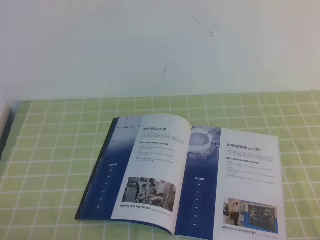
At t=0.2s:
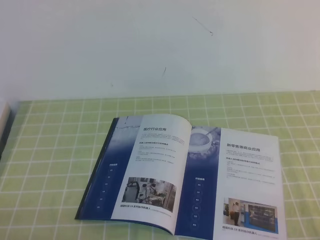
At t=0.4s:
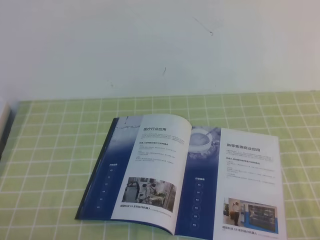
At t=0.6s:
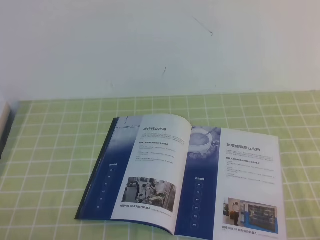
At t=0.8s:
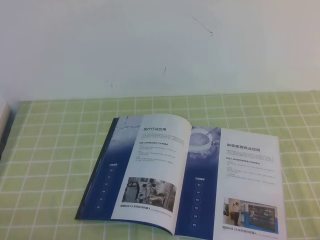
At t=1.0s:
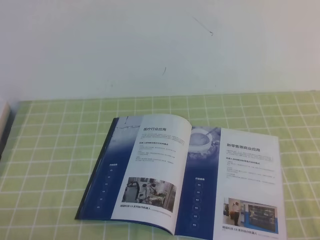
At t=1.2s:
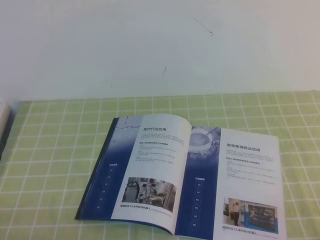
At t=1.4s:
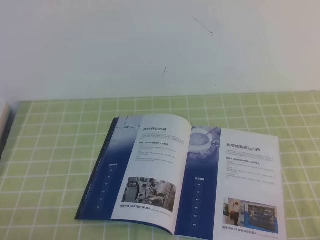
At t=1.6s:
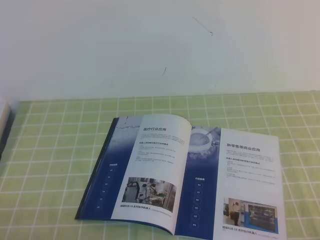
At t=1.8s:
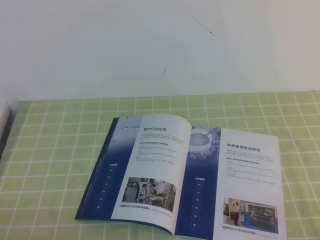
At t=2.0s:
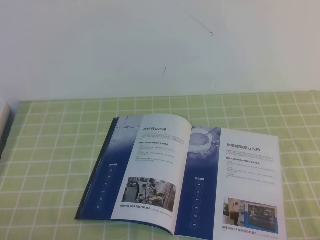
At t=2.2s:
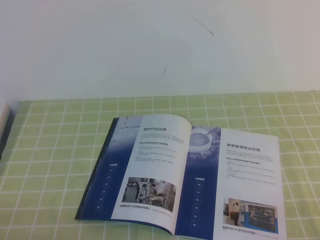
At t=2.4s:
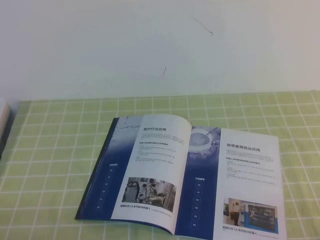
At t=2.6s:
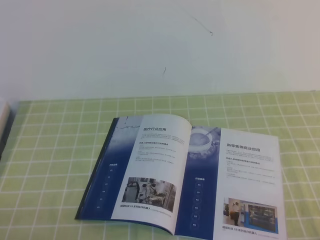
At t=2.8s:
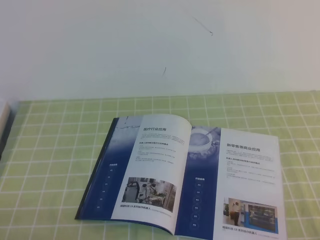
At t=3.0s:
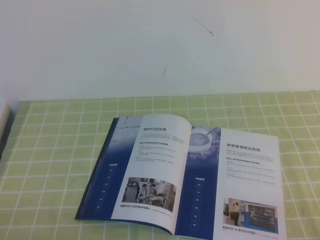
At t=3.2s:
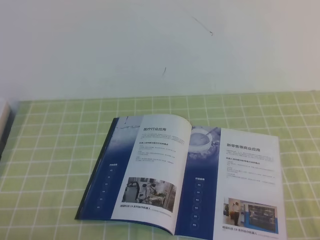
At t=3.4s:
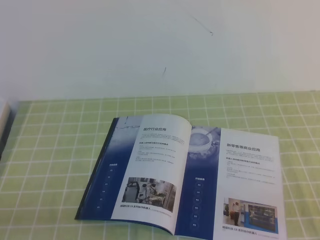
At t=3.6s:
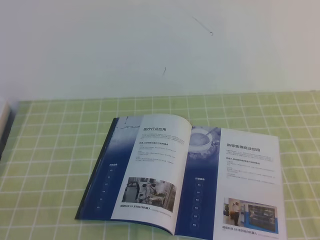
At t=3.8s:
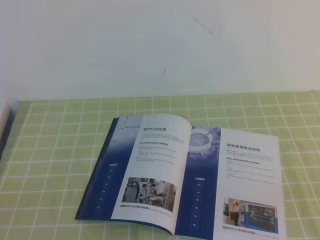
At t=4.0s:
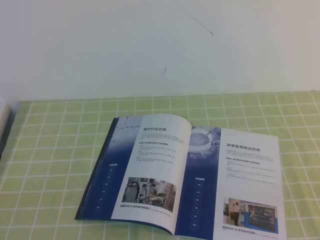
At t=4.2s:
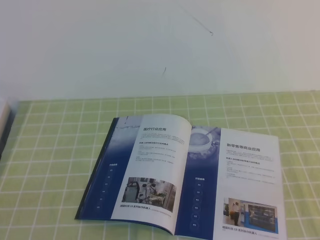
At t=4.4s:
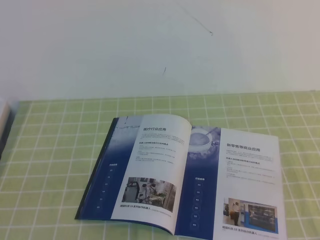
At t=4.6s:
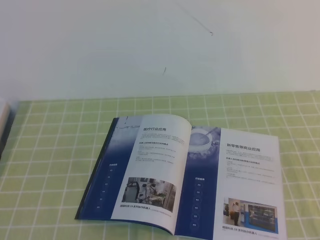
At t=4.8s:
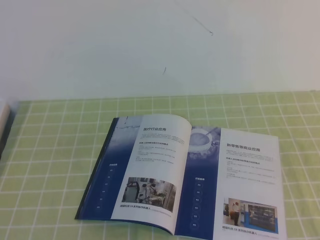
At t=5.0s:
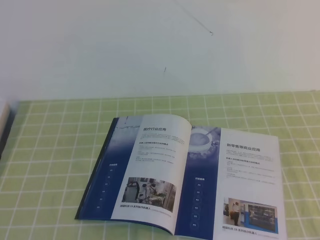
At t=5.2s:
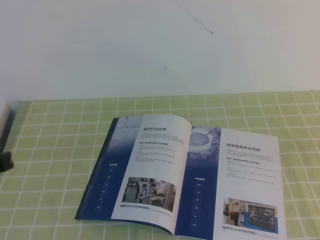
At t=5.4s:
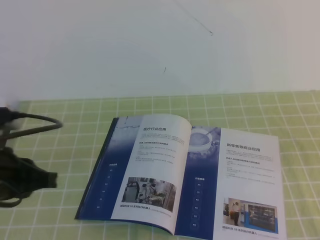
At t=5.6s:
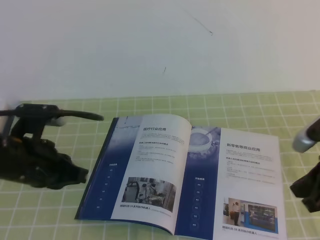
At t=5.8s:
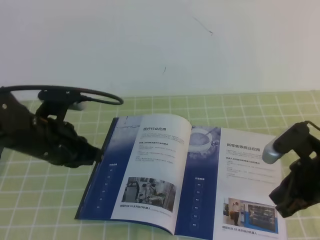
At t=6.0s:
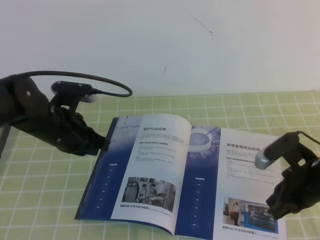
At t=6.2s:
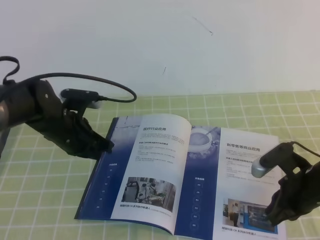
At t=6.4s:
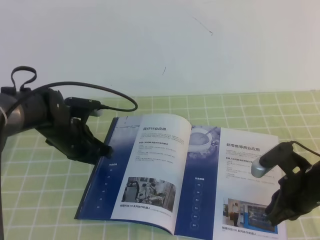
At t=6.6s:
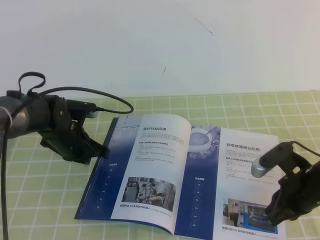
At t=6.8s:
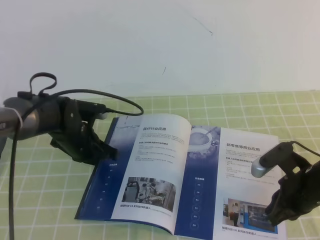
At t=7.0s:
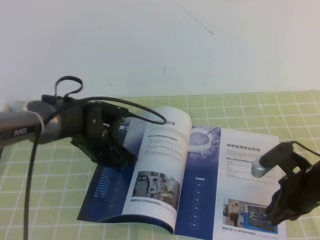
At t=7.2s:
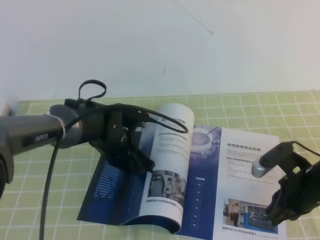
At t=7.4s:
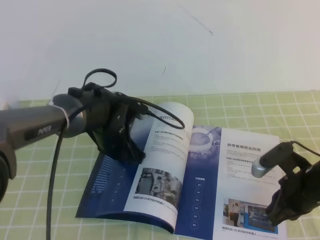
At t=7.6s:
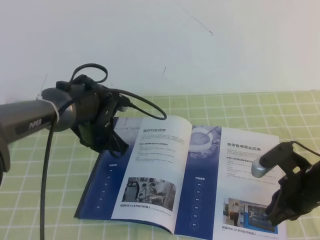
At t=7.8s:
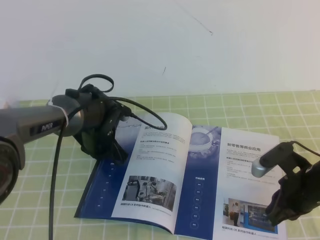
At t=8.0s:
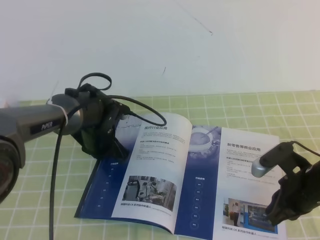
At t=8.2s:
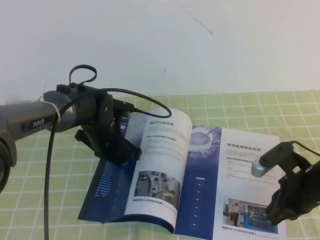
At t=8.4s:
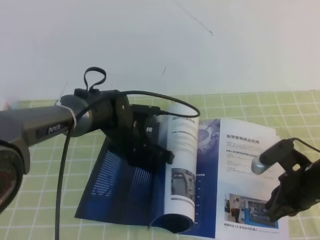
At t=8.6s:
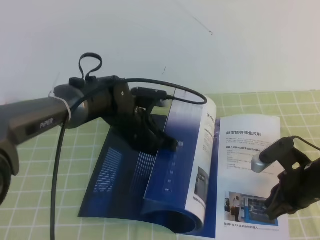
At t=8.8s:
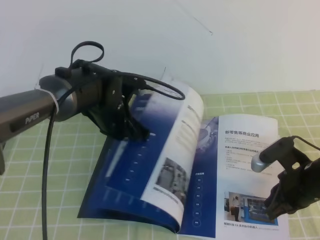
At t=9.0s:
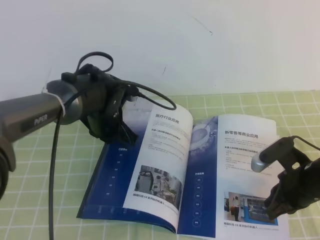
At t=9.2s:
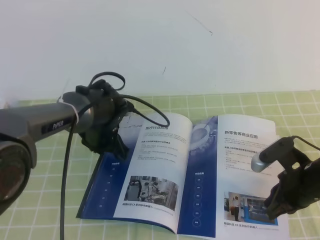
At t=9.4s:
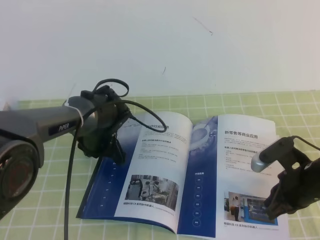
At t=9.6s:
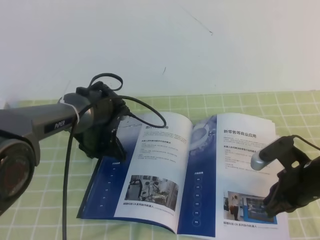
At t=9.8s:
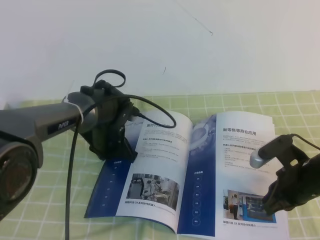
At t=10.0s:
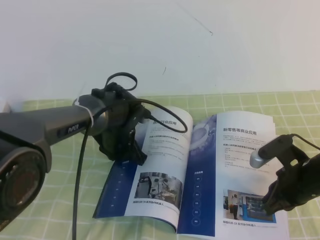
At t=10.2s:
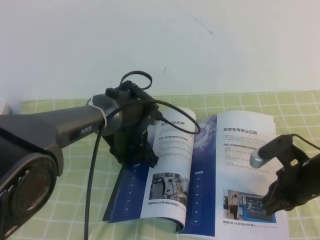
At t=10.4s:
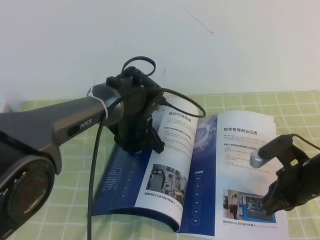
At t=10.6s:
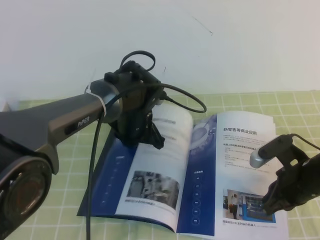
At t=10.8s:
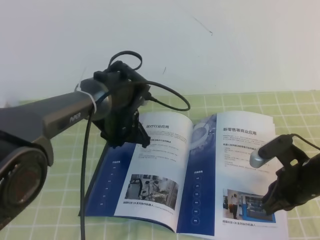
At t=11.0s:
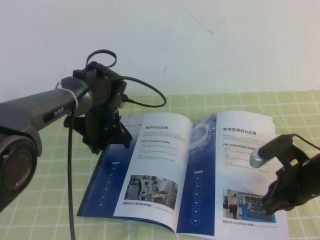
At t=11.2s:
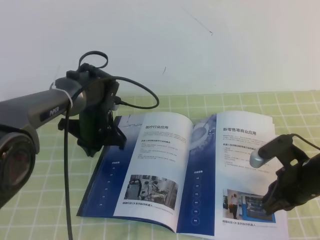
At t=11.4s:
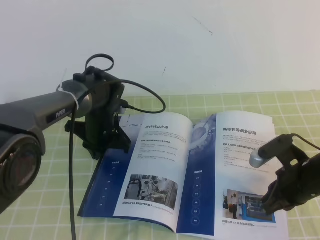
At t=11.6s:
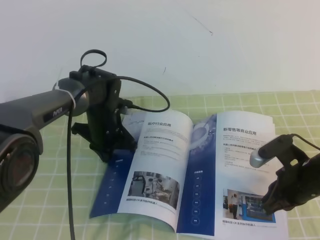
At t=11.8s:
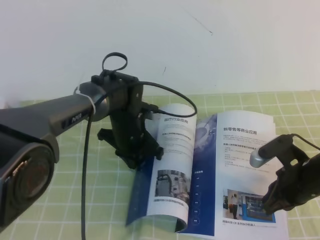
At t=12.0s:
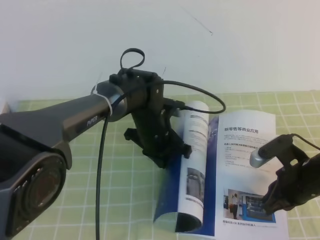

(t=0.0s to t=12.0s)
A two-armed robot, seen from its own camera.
Task of the whole recording: on the green tablecloth, hold the book with one hand and close it with the other.
t=0.0s - t=3.0s: The two grippers keep their place.
t=4.4s - t=6.0s: The right gripper heads forward, downward and to the left, covering some 25 cm; the left gripper goes about 30 cm forward.
t=6.0s - t=7.6s: The left gripper moves to the right, downward and forward, some 10 cm.
t=9.0s - t=10.4s: The left gripper travels to the right by approximately 5 cm.
t=10.4s - t=12.0s: The left gripper goes to the left and returns, some 10 cm each way.

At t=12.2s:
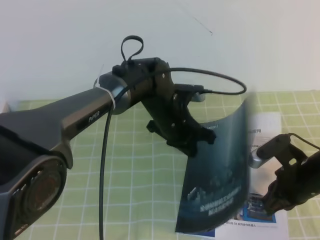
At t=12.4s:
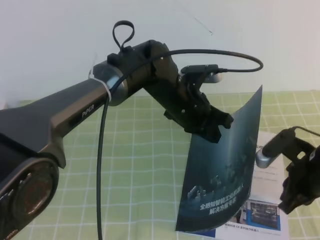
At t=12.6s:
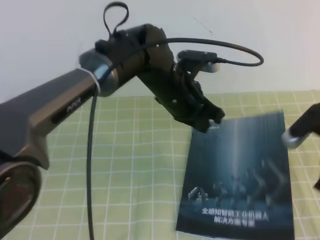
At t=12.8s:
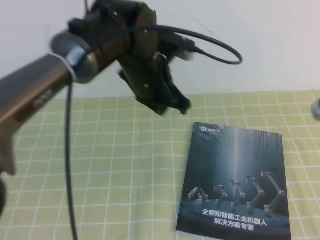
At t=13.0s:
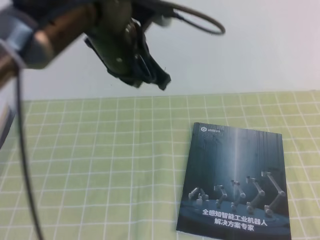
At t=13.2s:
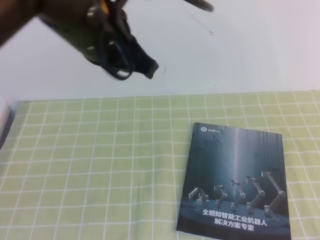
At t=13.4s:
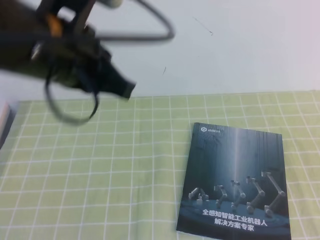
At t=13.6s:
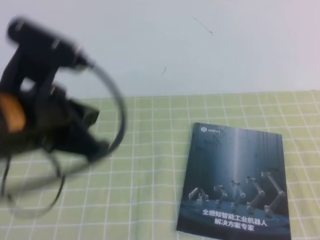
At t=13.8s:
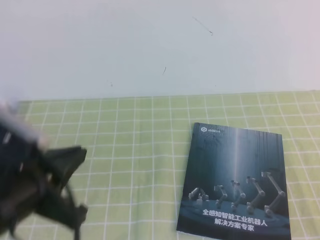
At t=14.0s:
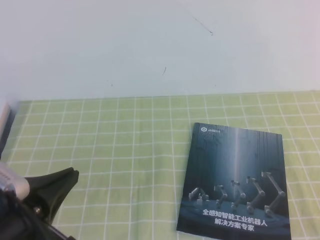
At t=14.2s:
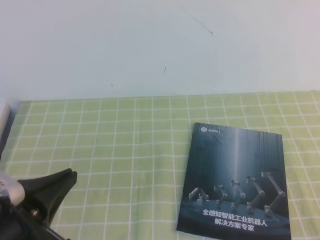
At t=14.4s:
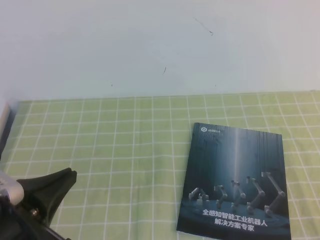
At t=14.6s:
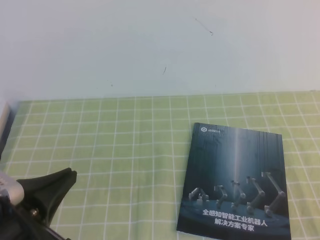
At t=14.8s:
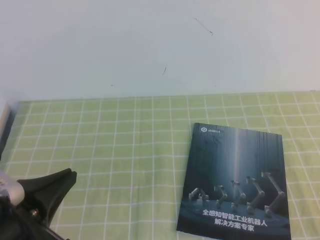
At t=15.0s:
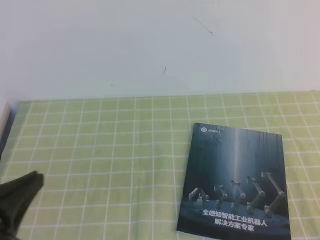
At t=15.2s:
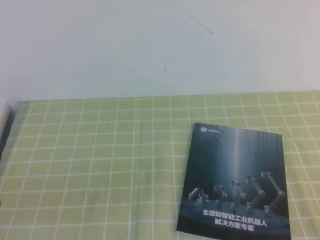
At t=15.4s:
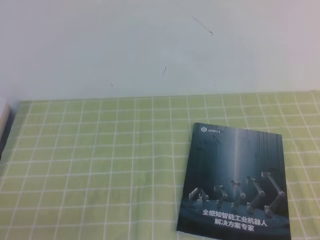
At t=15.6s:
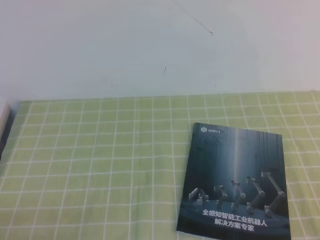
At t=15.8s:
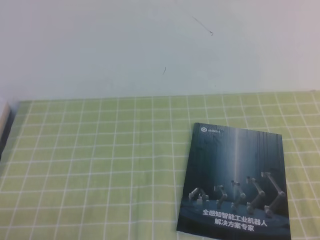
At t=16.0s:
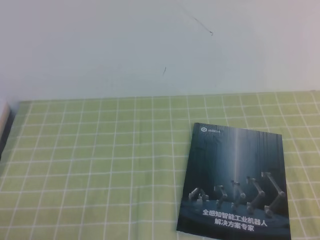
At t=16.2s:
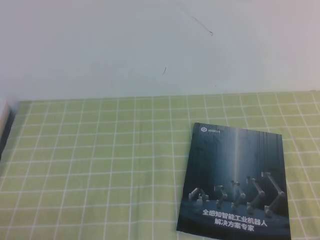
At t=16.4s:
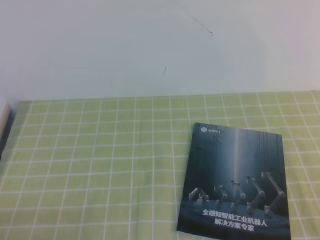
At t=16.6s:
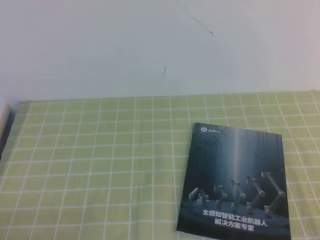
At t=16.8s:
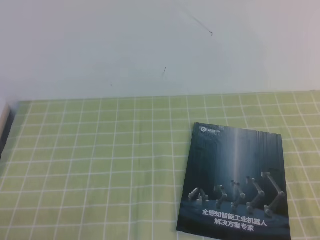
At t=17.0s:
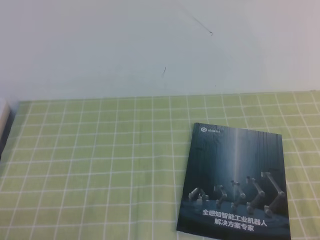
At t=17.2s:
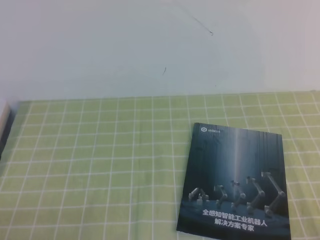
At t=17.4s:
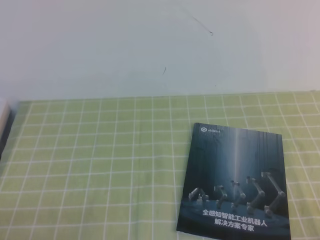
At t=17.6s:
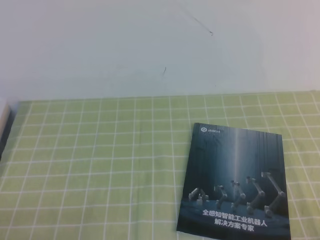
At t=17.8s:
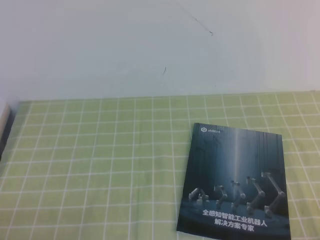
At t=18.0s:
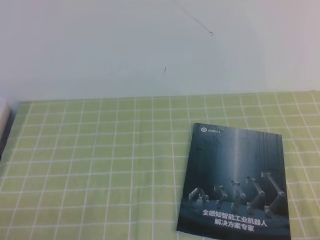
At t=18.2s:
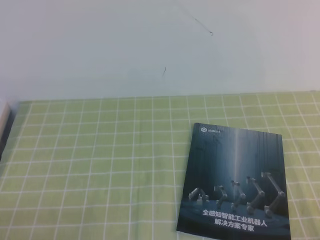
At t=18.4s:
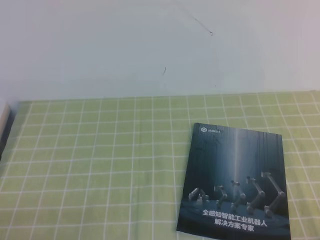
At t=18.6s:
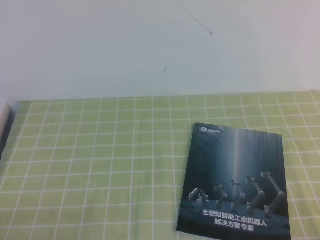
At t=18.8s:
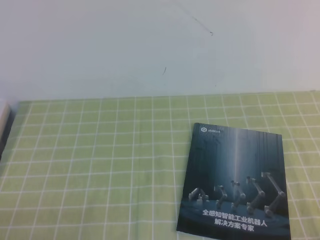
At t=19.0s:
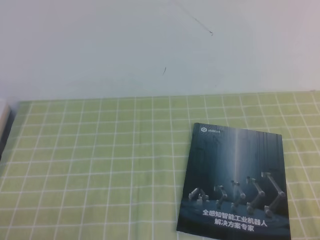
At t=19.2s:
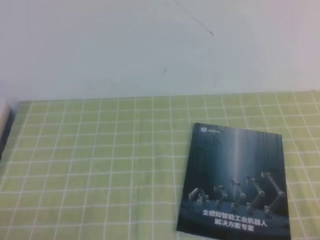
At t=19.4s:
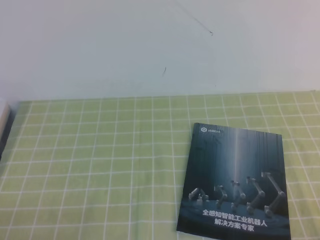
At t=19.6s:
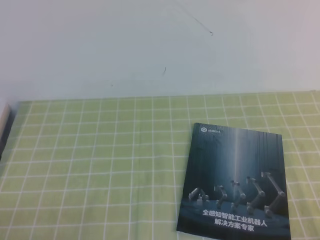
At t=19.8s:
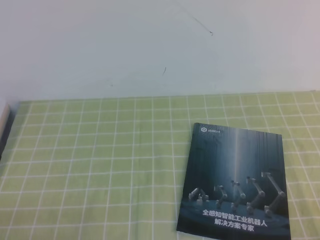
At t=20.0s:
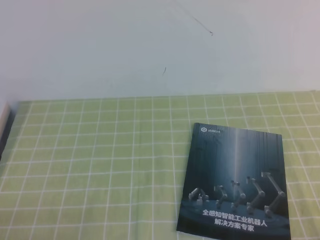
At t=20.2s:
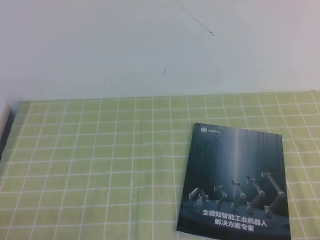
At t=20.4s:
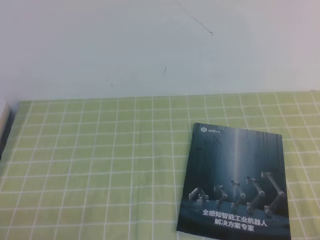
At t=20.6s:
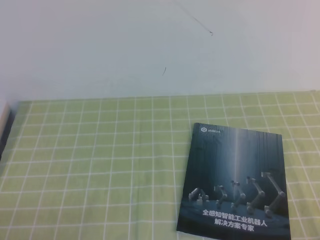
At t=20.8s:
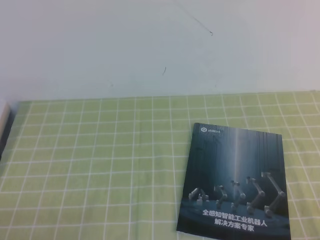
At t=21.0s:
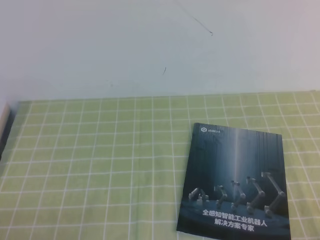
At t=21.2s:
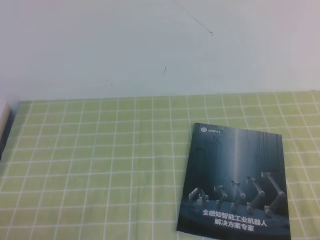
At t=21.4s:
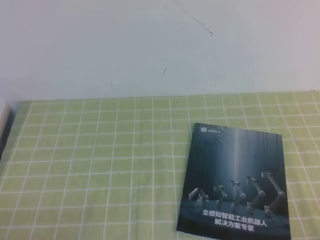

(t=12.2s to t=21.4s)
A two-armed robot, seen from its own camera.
Task of the whole recording: on the green tablecloth, hold the book with one hand and close it with the other.
Step, t=12.2s - t=21.4s: Close the open book.
t=12.2s - t=13.8s: The right gripper goes some 25 cm backward and upward, while the left gripper is displaced backward, to the left and upward by some 30 cm.
t=13.8s - t=15.2s: The left gripper is displaced backward, to the left and downward by some 15 cm.
t=18.4s - t=19.8s: The two grippers keep their place.
